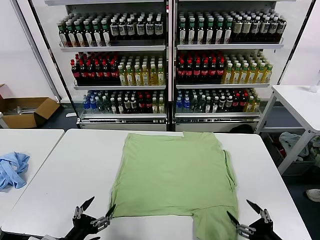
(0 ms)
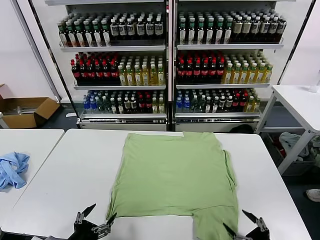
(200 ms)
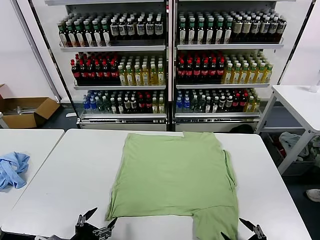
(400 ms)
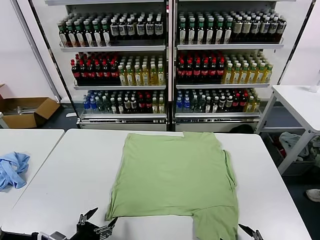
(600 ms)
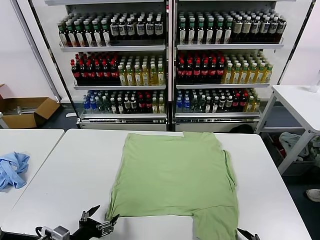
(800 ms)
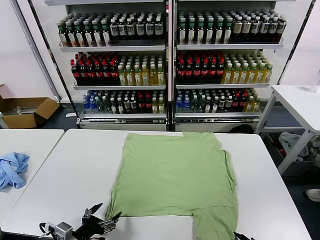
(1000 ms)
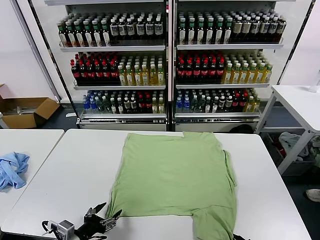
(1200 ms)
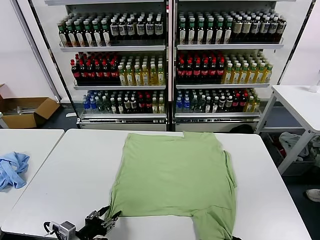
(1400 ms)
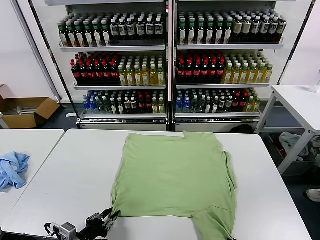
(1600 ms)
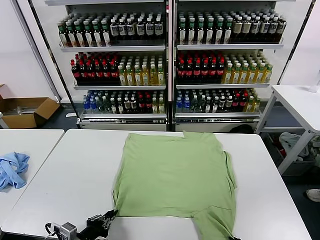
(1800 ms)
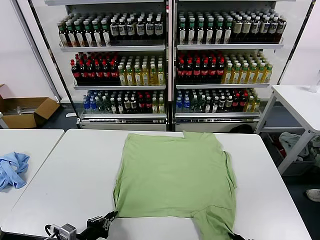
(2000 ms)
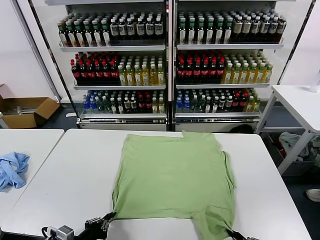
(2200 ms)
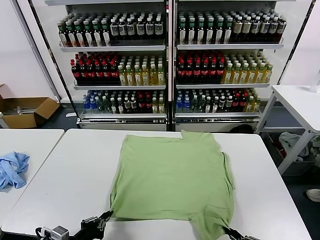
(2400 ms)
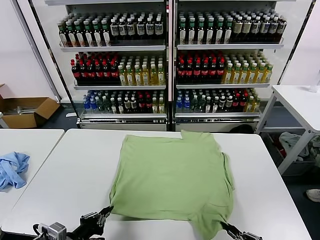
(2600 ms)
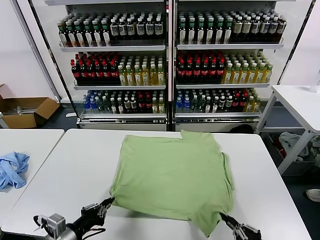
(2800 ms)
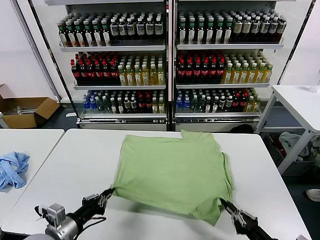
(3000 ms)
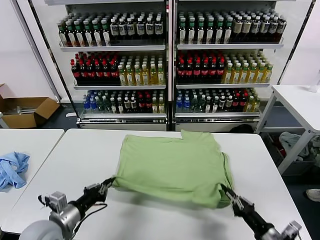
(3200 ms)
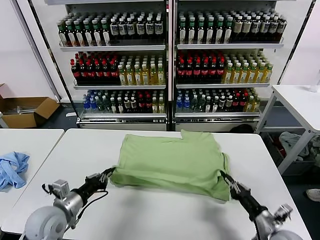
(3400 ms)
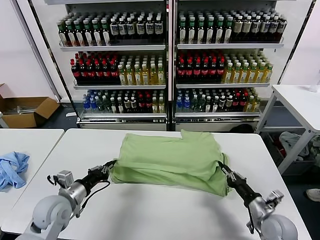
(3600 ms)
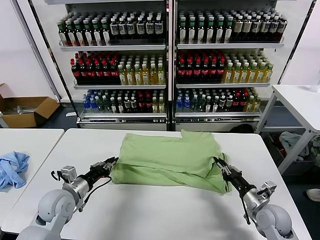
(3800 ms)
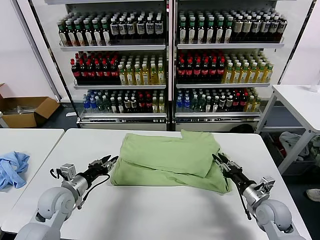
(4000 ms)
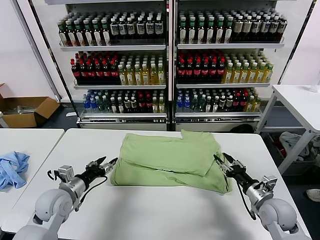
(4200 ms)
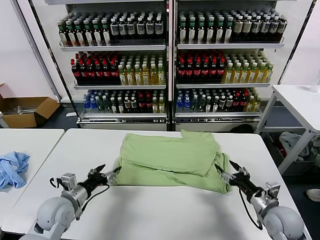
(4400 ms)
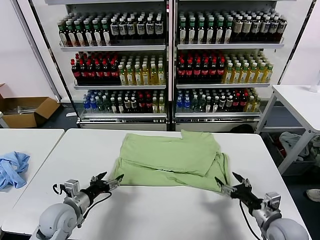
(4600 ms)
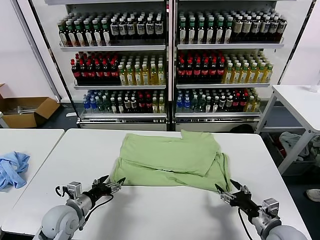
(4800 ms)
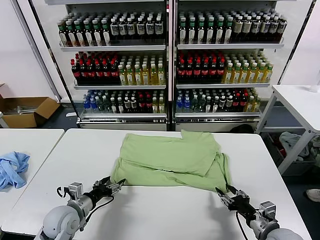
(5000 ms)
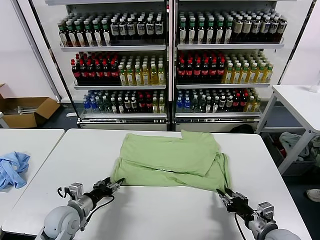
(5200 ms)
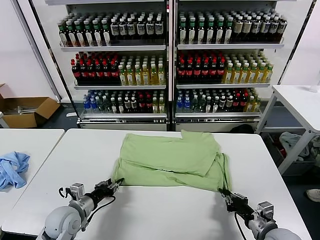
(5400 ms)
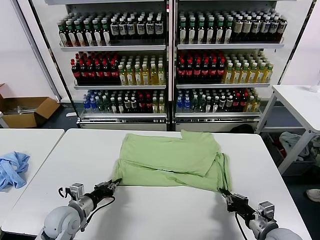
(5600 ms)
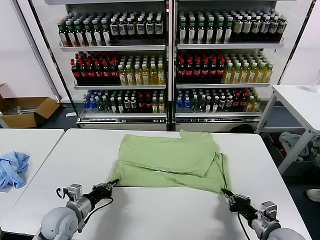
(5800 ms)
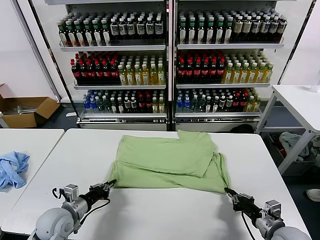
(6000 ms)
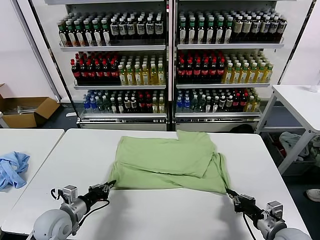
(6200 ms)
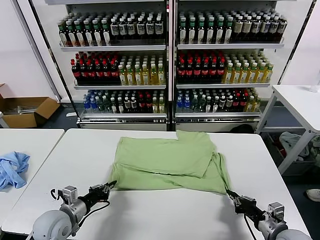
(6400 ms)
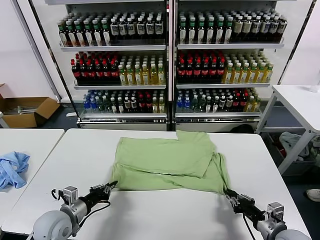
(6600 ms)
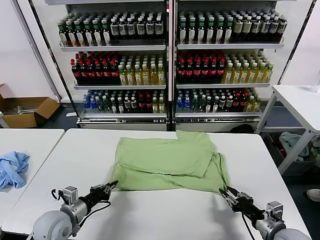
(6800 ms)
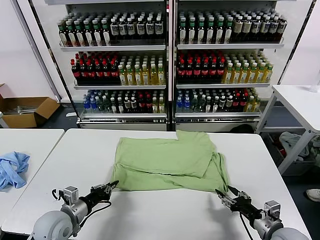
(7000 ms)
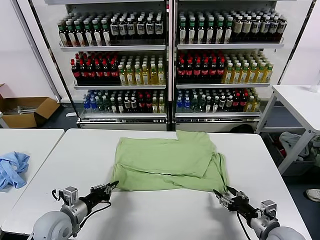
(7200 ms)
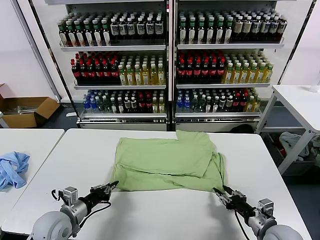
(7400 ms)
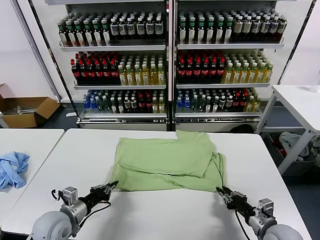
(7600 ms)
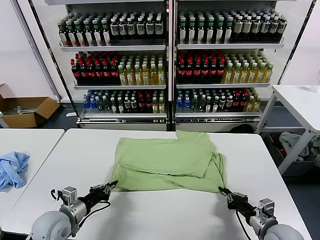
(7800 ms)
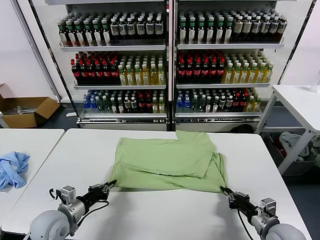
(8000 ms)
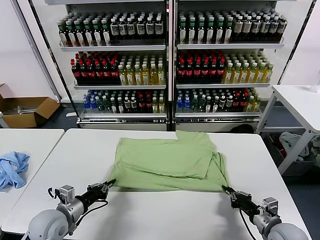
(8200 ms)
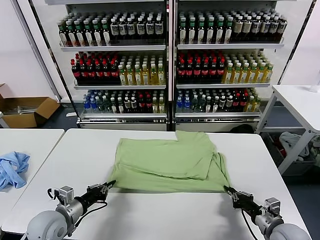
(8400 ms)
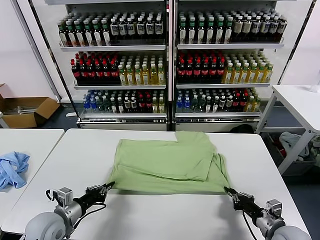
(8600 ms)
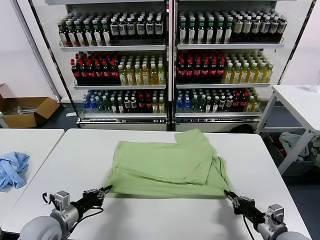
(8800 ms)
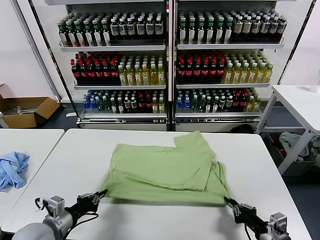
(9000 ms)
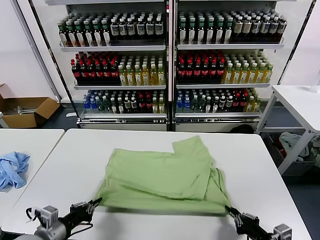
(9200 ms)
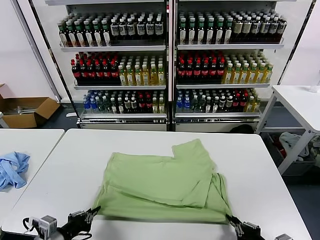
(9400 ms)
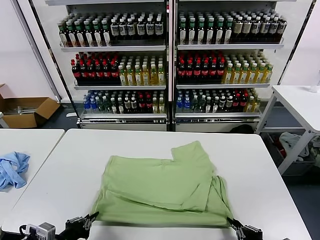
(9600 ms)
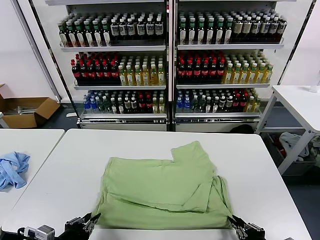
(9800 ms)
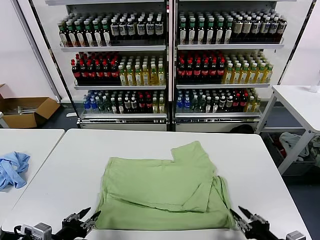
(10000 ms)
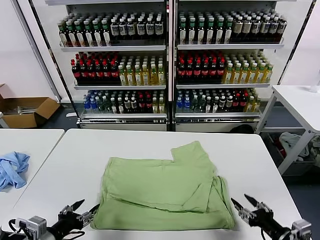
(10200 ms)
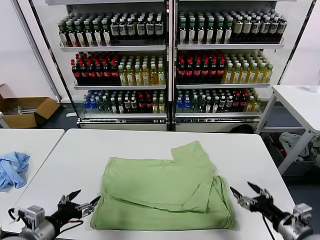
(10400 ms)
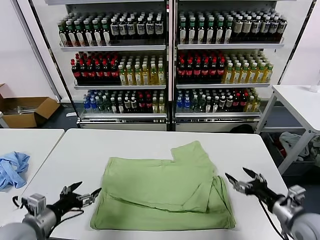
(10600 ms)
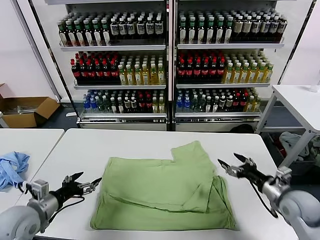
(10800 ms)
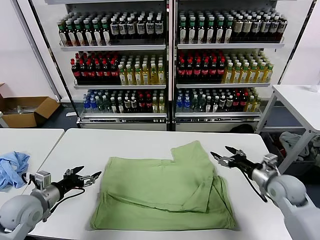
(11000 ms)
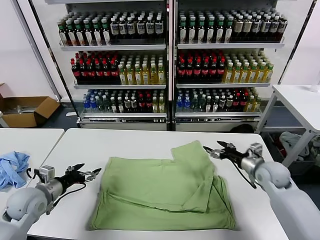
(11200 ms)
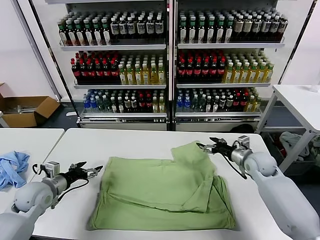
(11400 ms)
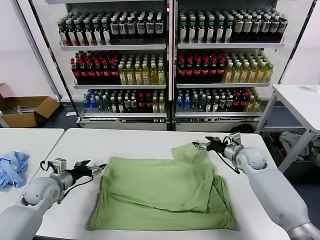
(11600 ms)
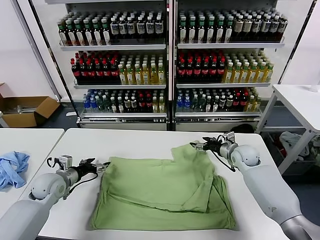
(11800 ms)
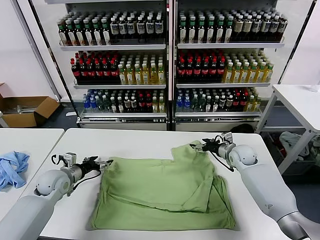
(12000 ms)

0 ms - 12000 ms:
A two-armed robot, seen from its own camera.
Task of the whole recording: fold and organize the clothes.
Step, 0 ms - 1800 ms: use both grippers simultaneously to clamp the lower edge of the clothing fabric.
Step, 2000 ms - 3800 ms: use both grippers to drag the lower edge of the fabric forward and fold it over the upper edge.
Step, 4000 ms - 9800 ms: Drag the clothes downward with both gripper.
1600 ms - 3000 ms: The left gripper is displaced upward by approximately 5 cm. The right gripper heads forward, covering roughly 10 cm.
3000 ms - 4400 ms: The two grippers go roughly 10 cm forward. The right gripper opens up. Meanwhile the left gripper opens its fingers.
4400 ms - 6000 ms: The left gripper closes its fingers. The right gripper closes up.
6000 ms - 7600 ms: The right gripper opens and closes again.
7600 ms - 9000 ms: The grippers both shift backward by about 5 cm.
9000 ms - 10400 ms: The right gripper is displaced forward and upward by about 5 cm, and opens; the left gripper opens its fingers.
10400 ms - 12000 ms: The grippers both shift forward by some 25 cm.

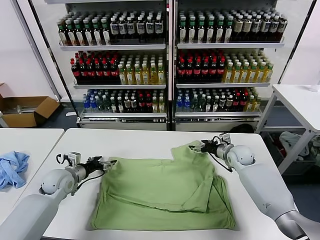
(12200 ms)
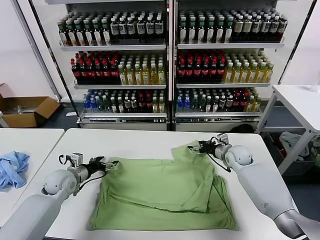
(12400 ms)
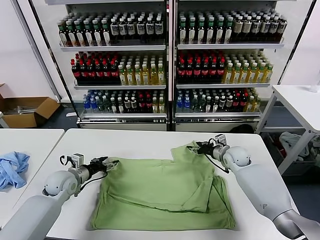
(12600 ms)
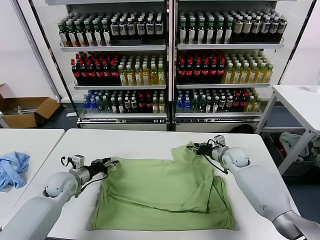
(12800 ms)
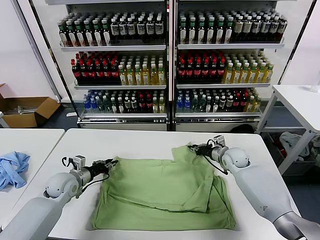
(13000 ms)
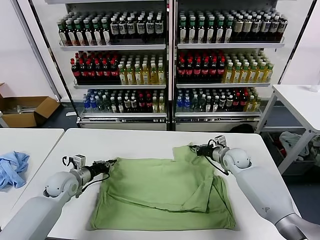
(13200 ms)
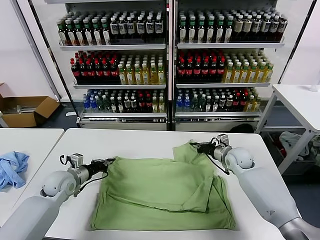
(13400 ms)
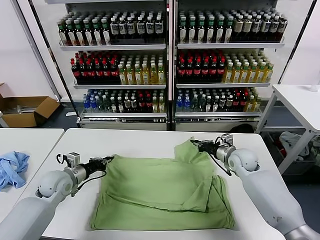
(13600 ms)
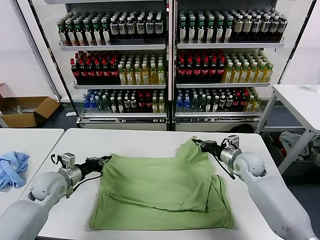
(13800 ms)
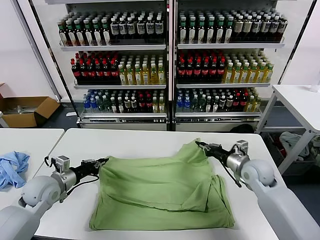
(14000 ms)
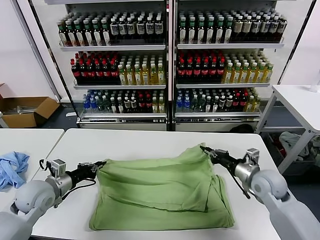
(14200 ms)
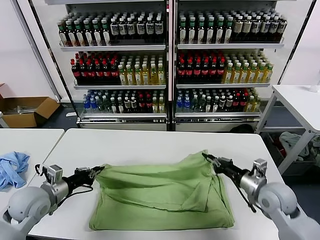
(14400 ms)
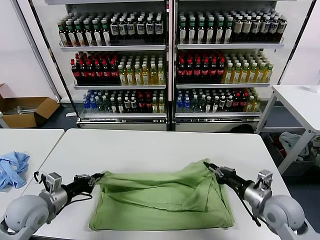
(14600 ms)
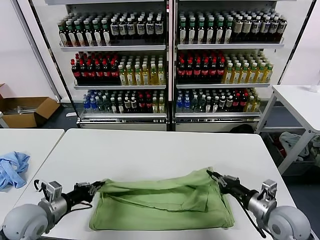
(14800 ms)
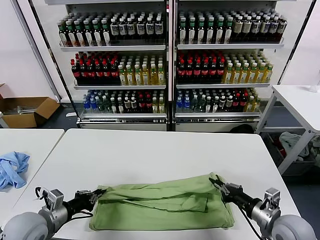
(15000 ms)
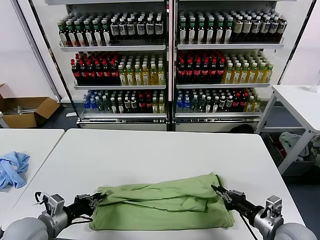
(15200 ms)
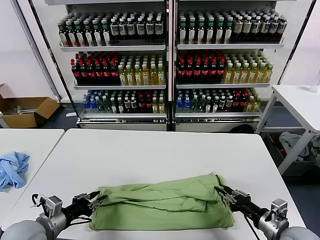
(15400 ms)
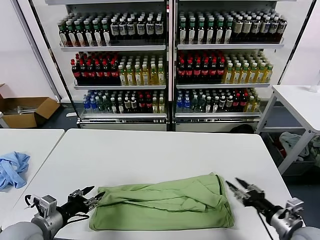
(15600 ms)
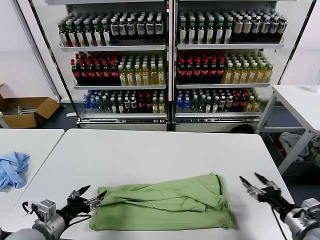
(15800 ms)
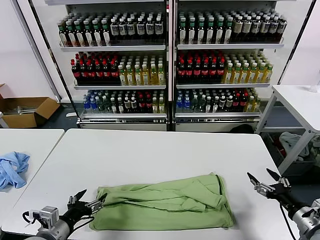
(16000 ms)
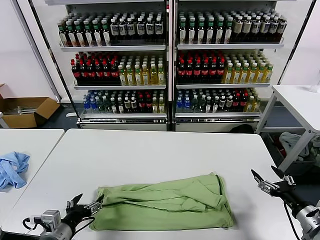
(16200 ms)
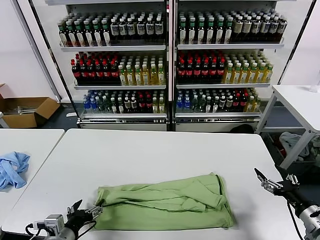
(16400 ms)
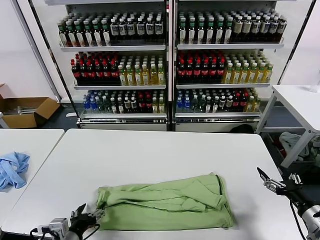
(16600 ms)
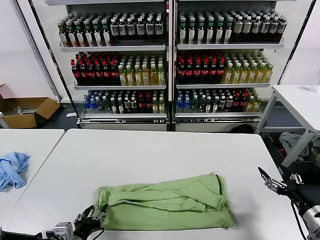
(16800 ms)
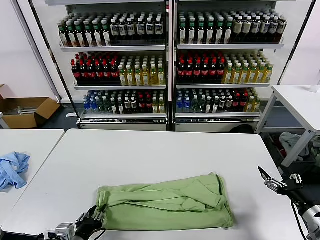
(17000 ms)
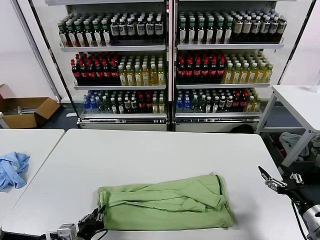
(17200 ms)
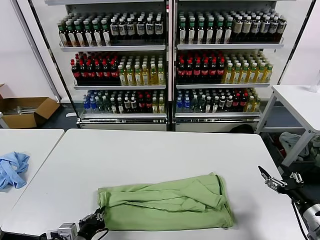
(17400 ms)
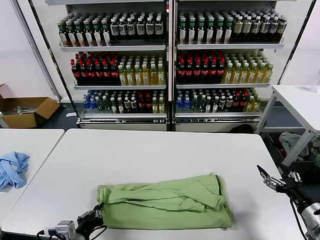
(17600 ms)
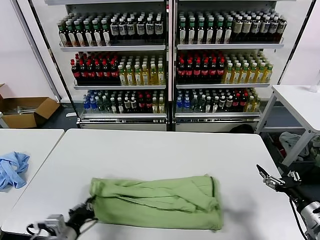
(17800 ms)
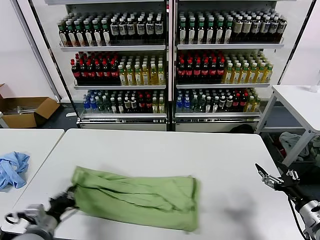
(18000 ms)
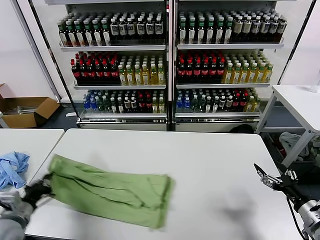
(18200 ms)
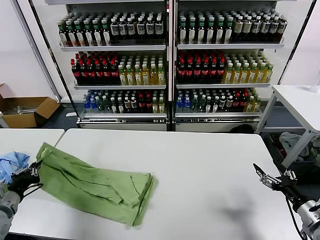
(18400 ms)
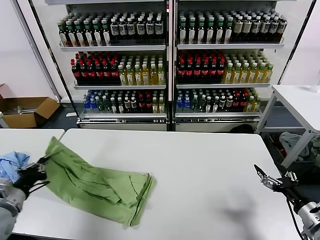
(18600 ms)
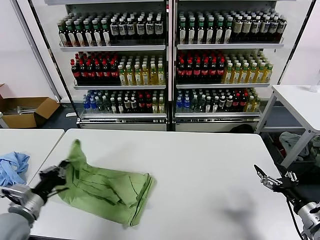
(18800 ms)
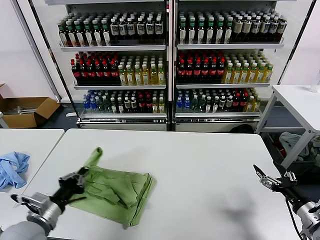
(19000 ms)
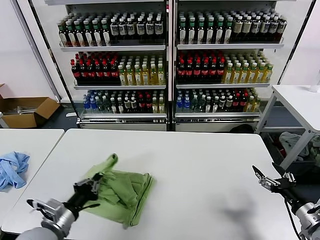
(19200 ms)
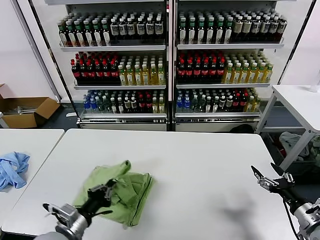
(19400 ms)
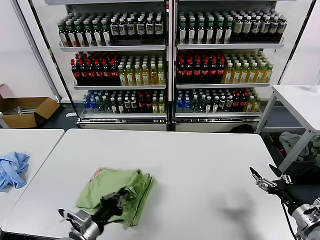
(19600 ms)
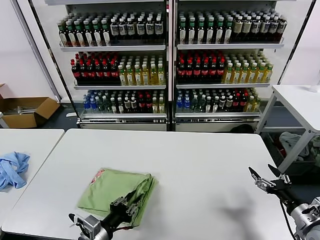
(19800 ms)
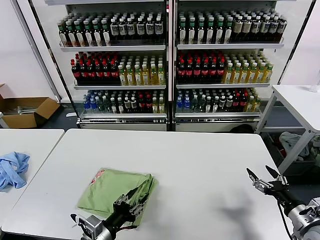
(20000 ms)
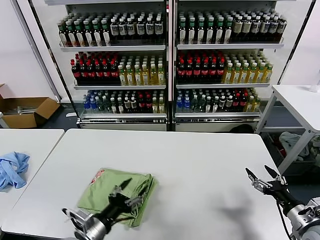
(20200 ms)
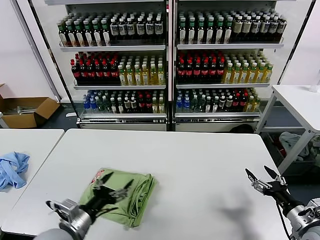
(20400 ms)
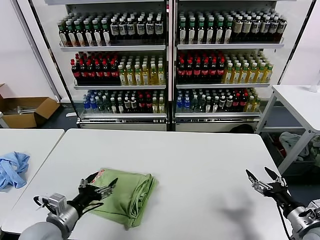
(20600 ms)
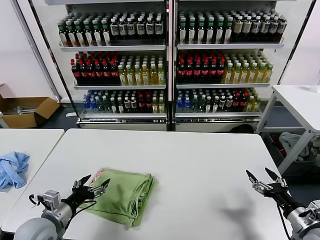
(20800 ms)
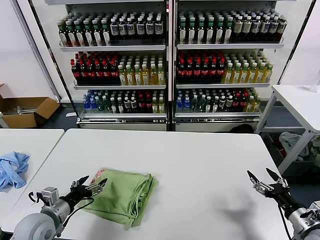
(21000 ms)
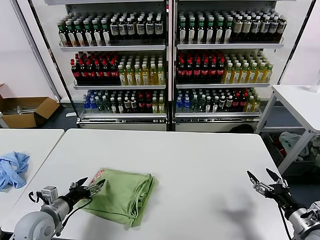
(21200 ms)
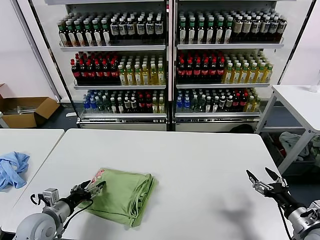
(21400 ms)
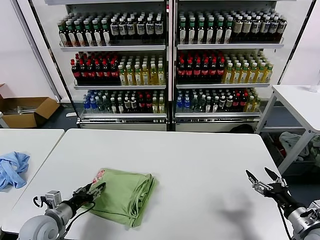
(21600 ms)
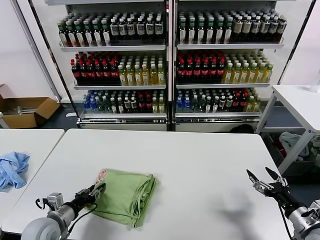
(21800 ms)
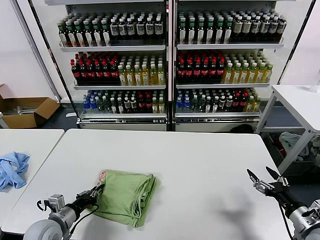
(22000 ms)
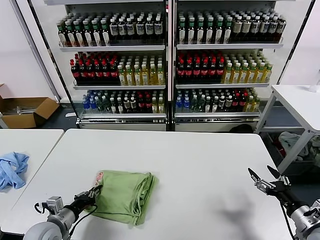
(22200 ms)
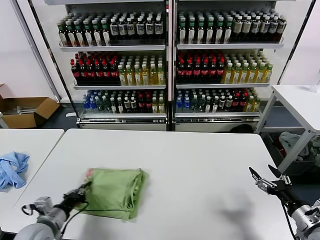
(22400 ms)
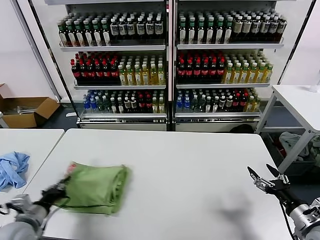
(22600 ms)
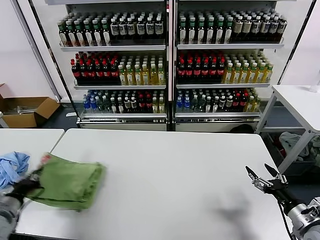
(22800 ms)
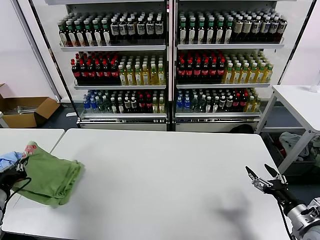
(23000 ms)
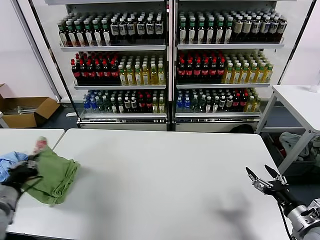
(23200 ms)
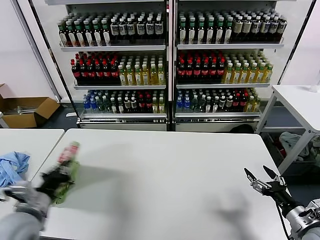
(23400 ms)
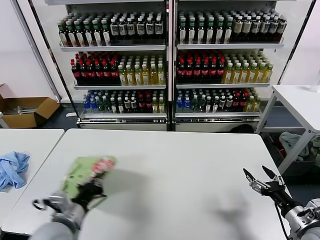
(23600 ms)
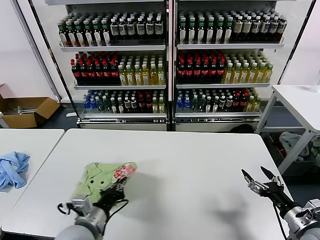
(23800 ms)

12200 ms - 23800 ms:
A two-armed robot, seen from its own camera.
Task of the whole recording: fold and organize the clothes.
Step, 13400 ms - 15400 ms: use both grippers to drag the upper edge of the fabric backward and fold it over the lower edge.
Step, 15600 ms - 17400 ms: use the left gripper to clamp the left edge of the fabric.
Step, 17600 ms - 19800 ms: use the left gripper to drag the left edge of the fabric to the left and folds it over the right edge.
12200 ms - 13600 ms: The left gripper closes its fingers; the right gripper heads backward, covering some 5 cm, and closes.
13600 ms - 15000 ms: The left gripper goes roughly 15 cm backward. The right gripper shifts approximately 25 cm backward.
15000 ms - 16600 ms: The right gripper shifts about 10 cm to the right, and opens, while the left gripper heads to the right and backward, covering roughly 10 cm, and opens up.
16600 ms - 18000 ms: The left gripper shifts some 5 cm to the left, and closes.
18000 ms - 19400 ms: The left gripper shifts about 5 cm to the right.
19400 ms - 21000 ms: The left gripper is displaced to the left and forward by approximately 10 cm, and opens up.
21000 ms - 22400 ms: The left gripper closes its fingers.
22400 ms - 23800 ms: The left gripper travels to the right and upward by some 15 cm.
